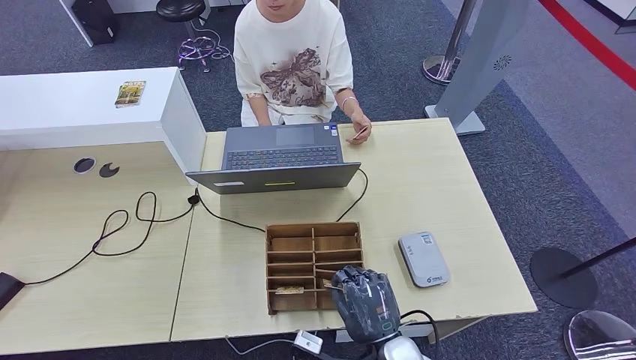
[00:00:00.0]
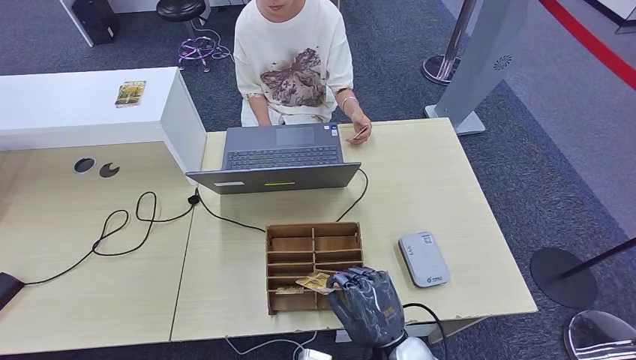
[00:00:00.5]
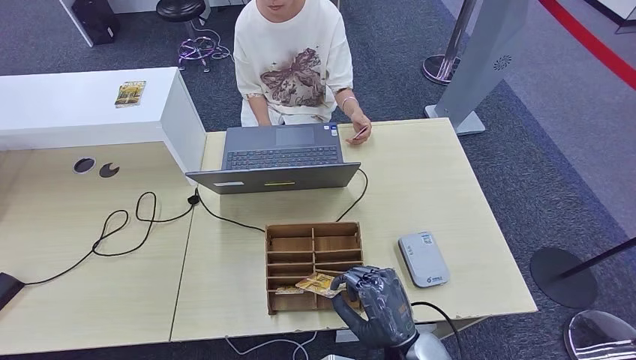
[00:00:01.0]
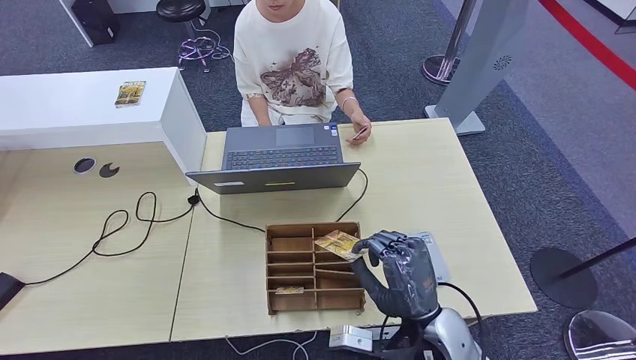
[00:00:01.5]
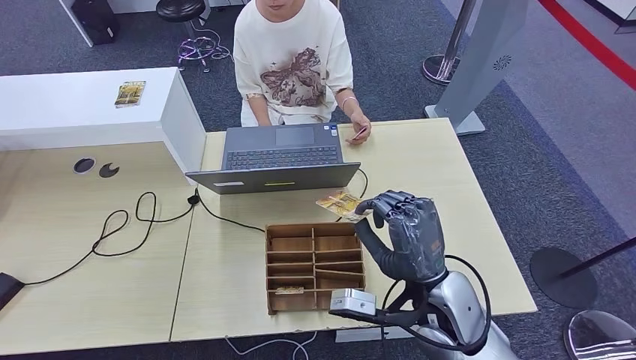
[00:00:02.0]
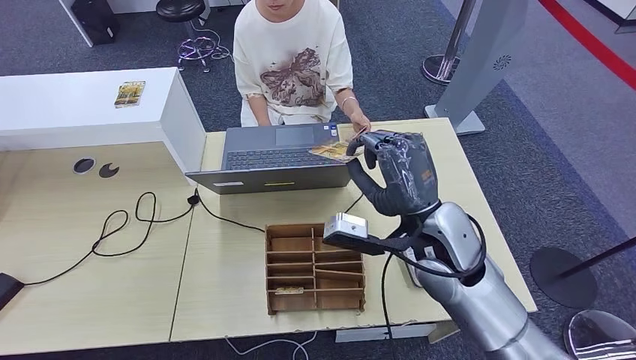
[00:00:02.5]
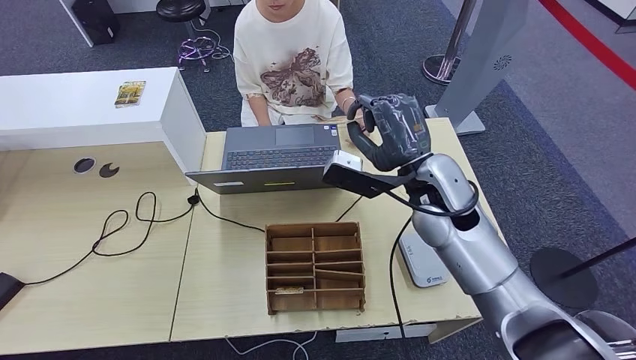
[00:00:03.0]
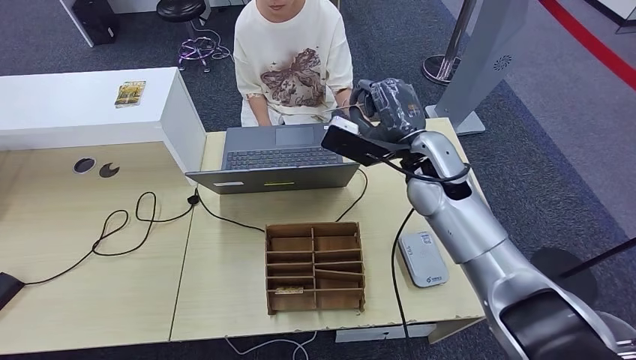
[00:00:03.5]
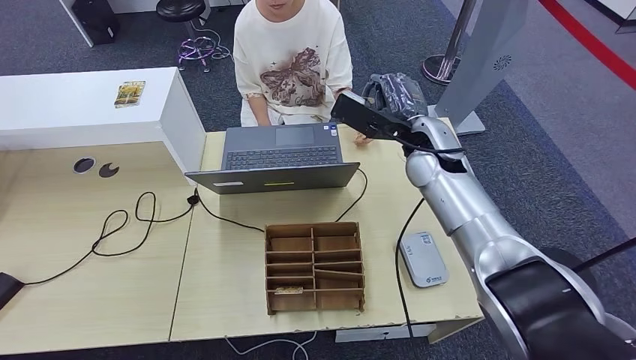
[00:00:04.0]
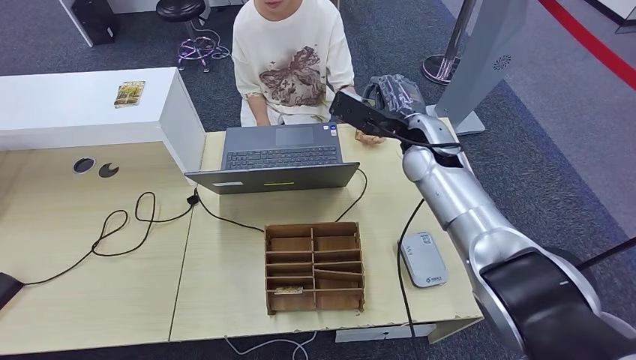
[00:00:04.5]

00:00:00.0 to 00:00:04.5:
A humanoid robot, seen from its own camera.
Step, 00:00:00.0 to 00:00:02.0: Pick up the room key from the key card box.
Step, 00:00:02.5 to 00:00:04.5: Hand the room key to the person.
00:00:00.0 to 00:00:02.0: The right hand travels upward and forward by about 15 cm.
00:00:02.0 to 00:00:04.5: The right hand heads forward, covering some 25 cm.
